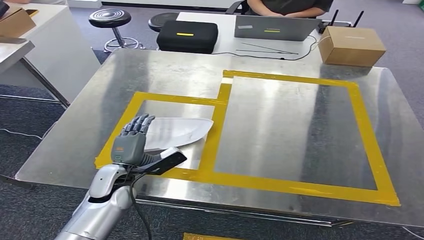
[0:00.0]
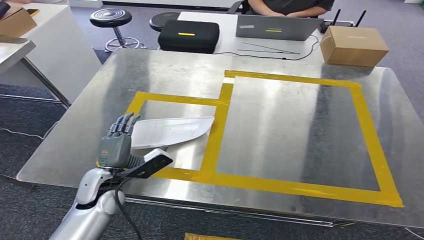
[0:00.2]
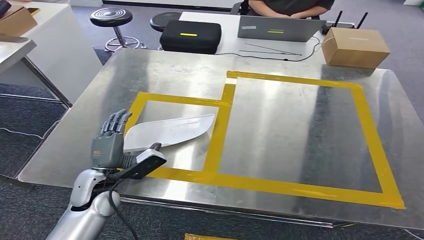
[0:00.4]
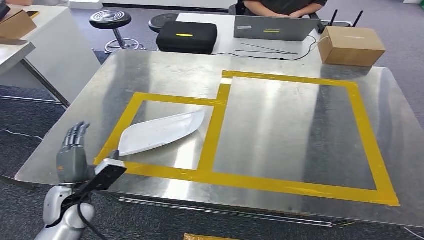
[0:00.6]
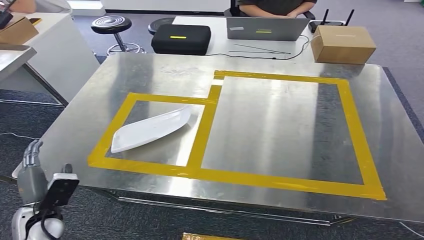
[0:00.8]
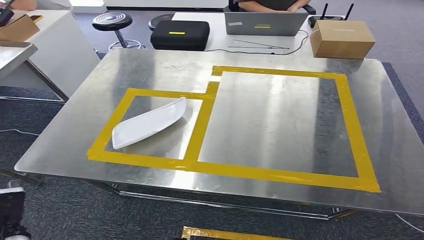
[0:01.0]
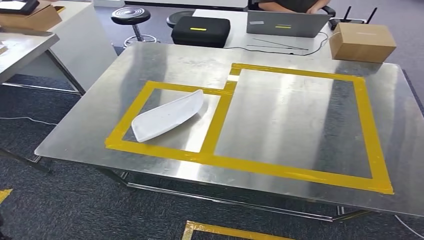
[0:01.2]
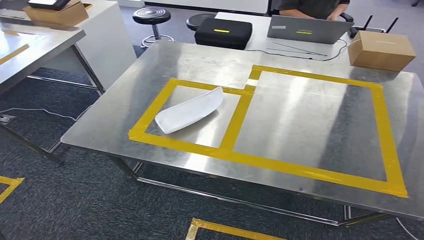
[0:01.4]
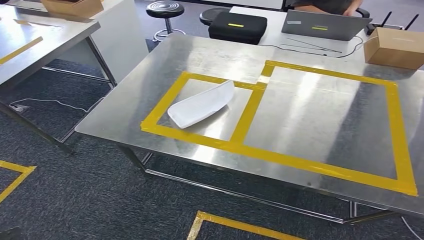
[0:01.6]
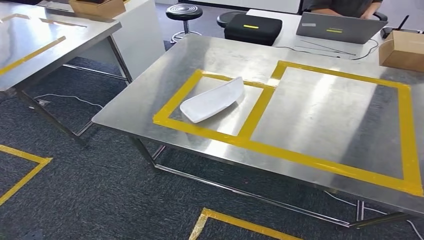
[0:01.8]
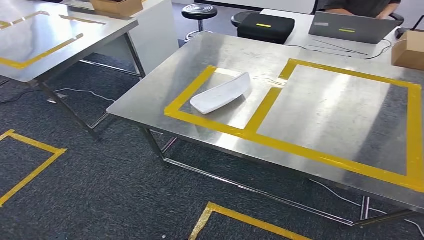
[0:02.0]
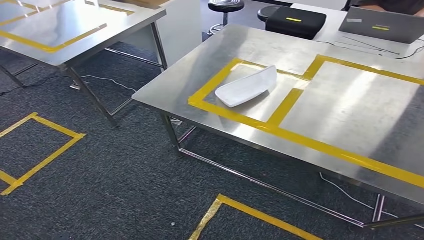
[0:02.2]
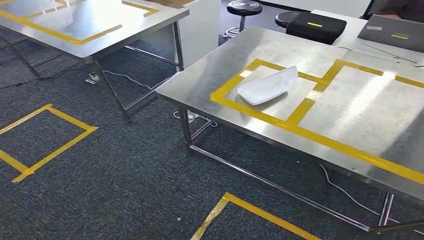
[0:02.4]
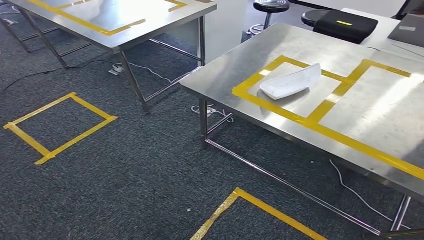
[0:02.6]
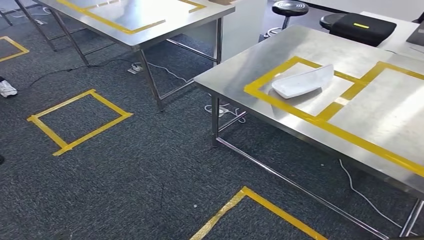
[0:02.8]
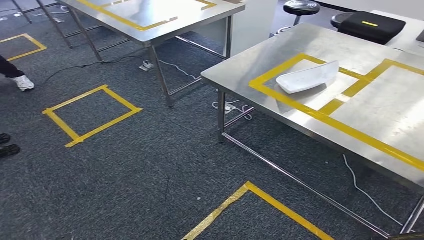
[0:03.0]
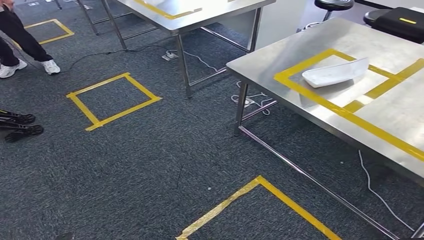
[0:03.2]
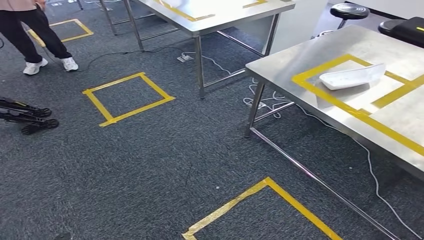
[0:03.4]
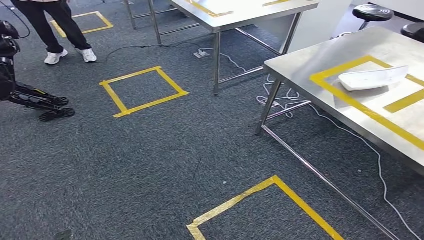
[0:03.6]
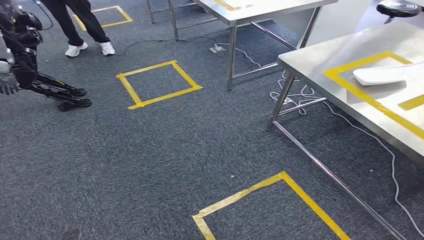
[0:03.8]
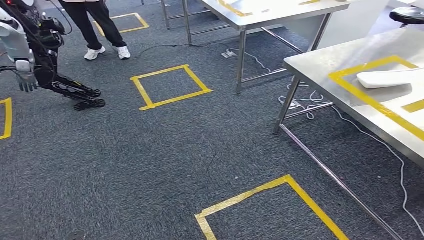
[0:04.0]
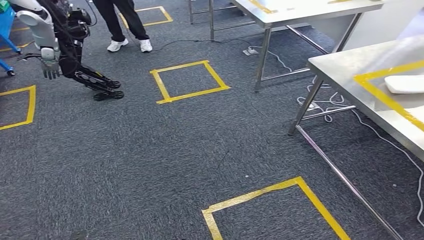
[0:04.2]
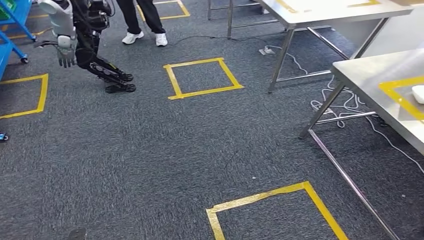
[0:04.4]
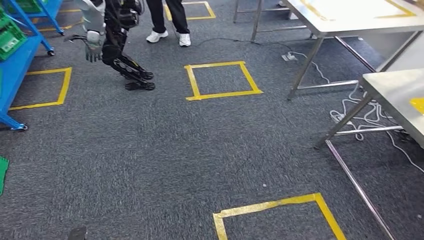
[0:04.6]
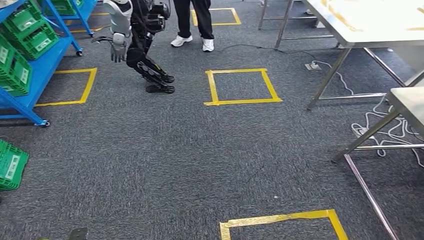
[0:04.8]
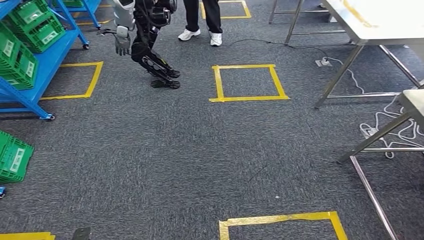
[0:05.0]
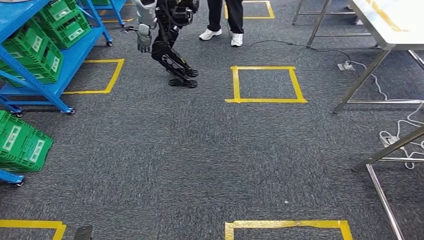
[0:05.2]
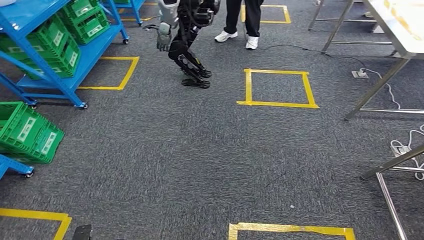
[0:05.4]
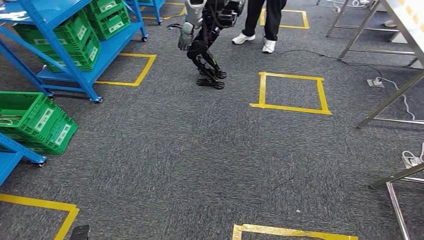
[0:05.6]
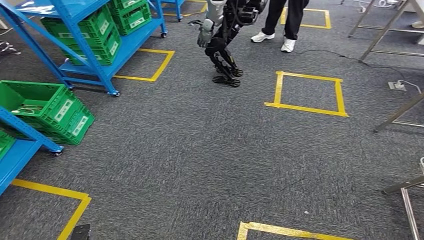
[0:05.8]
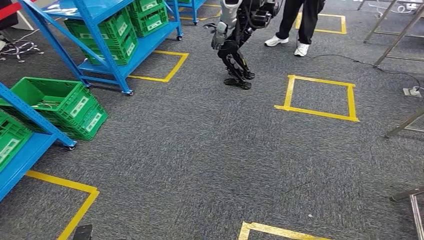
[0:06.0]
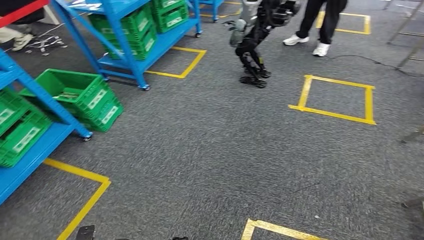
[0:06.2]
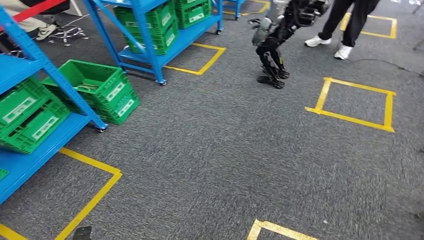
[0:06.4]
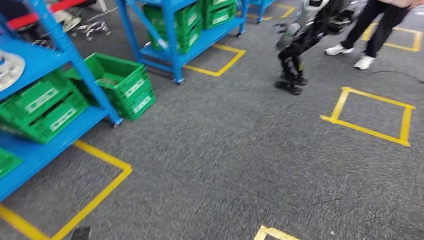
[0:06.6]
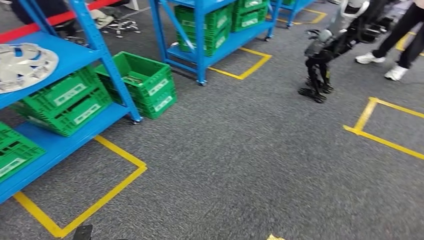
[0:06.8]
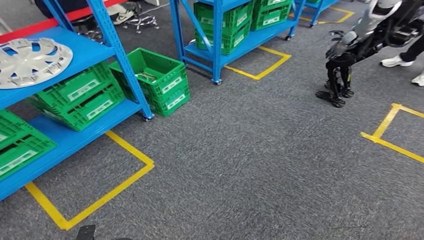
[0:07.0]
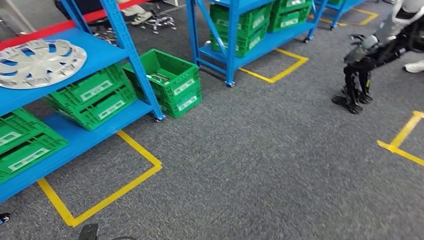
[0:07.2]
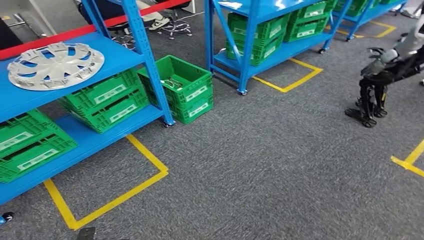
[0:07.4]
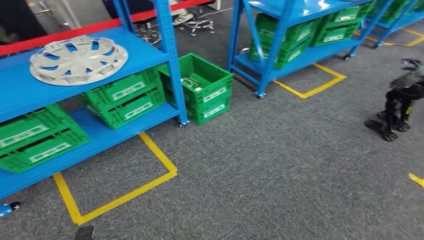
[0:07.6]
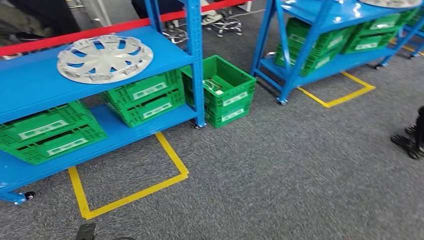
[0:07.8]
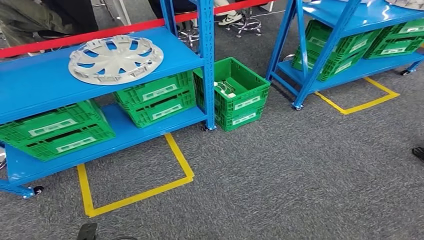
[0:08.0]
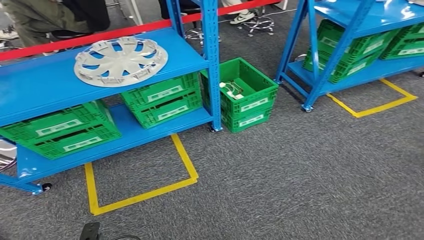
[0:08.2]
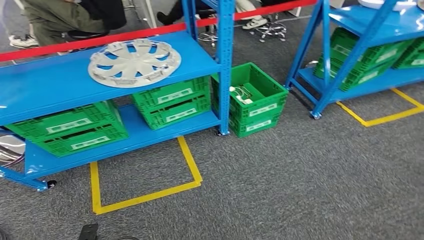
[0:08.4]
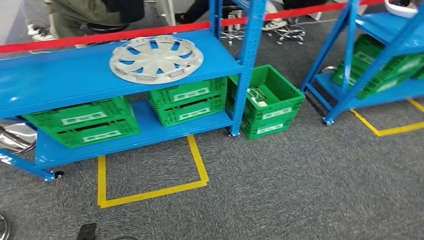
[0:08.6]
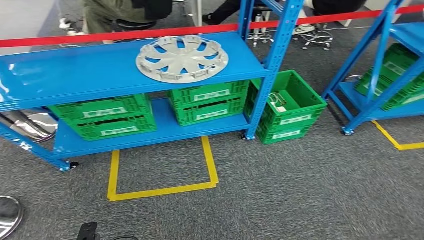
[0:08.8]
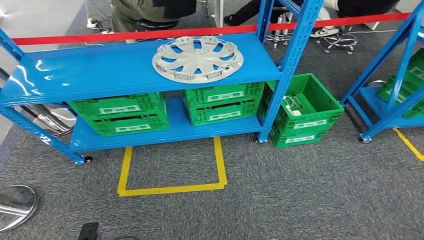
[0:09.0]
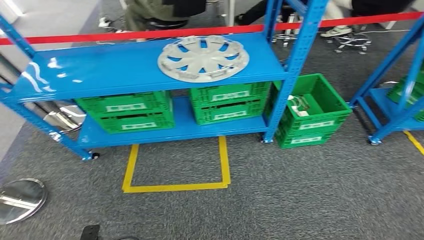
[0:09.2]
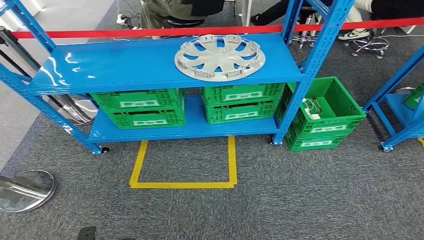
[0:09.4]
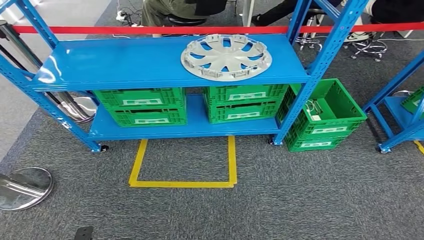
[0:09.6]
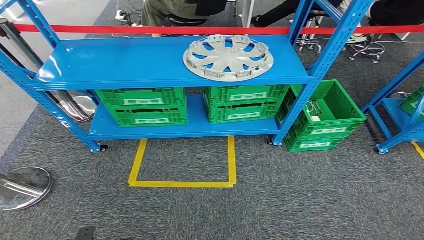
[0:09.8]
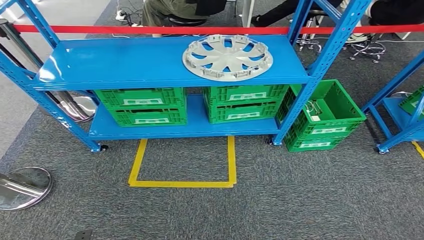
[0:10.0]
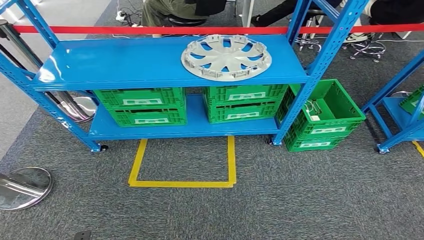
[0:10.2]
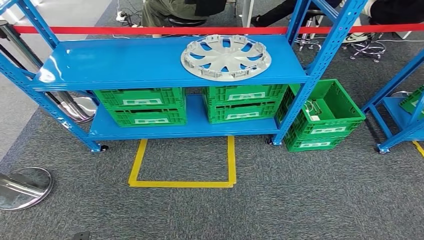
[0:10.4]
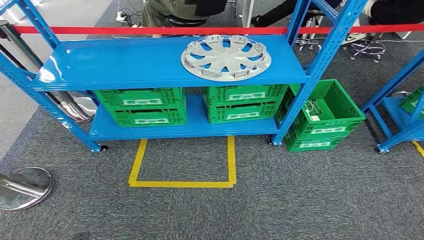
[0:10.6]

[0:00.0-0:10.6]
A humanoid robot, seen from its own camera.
Step, 0:02.0 to 0:10.4: Move to the initial position at the workbench.
